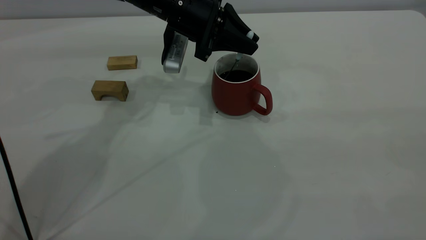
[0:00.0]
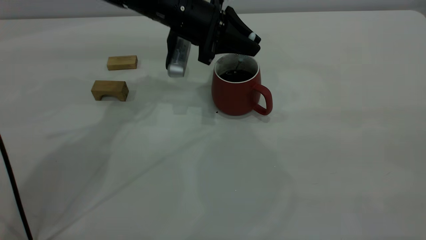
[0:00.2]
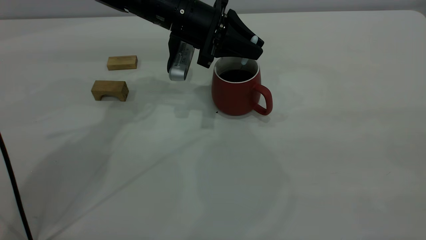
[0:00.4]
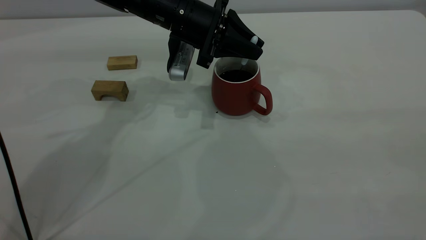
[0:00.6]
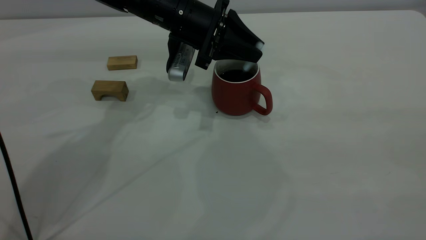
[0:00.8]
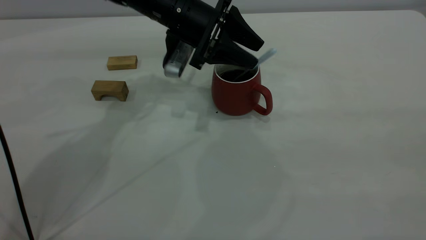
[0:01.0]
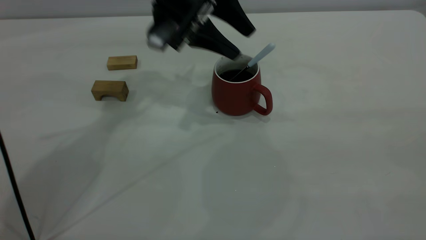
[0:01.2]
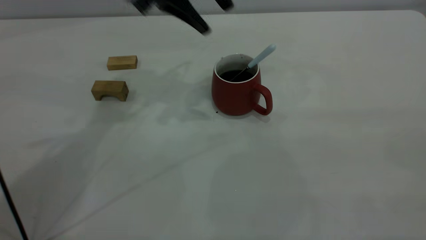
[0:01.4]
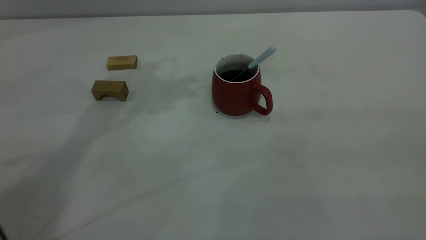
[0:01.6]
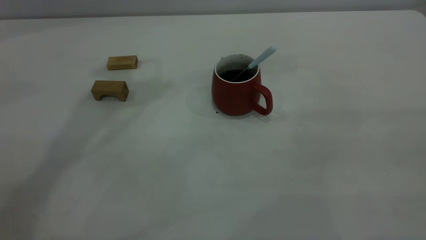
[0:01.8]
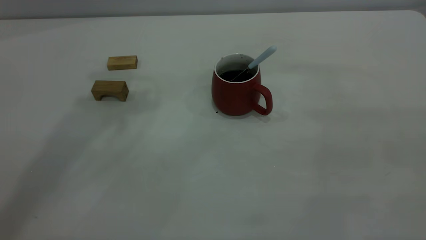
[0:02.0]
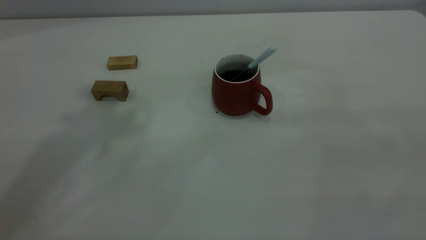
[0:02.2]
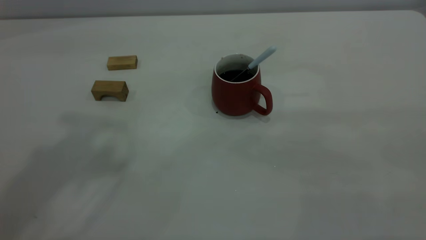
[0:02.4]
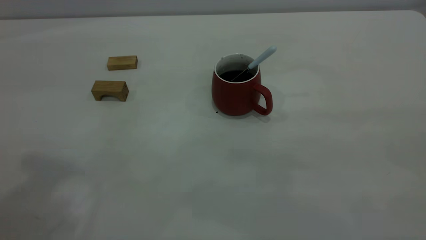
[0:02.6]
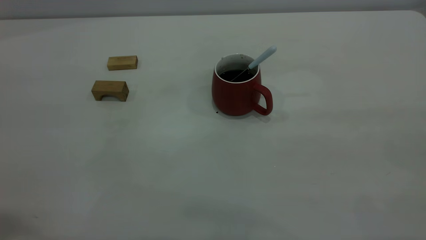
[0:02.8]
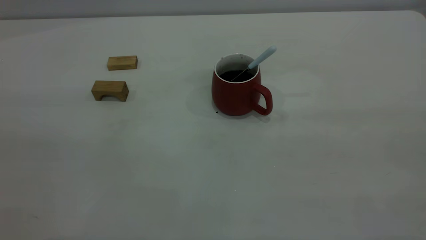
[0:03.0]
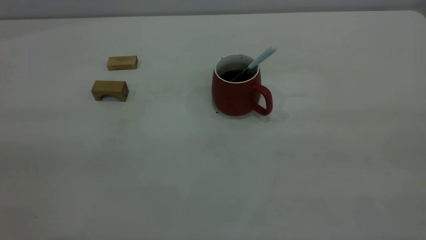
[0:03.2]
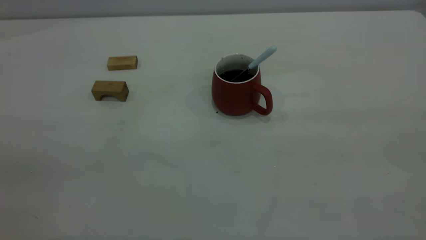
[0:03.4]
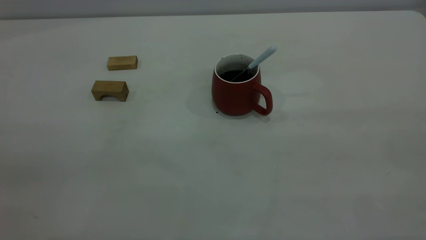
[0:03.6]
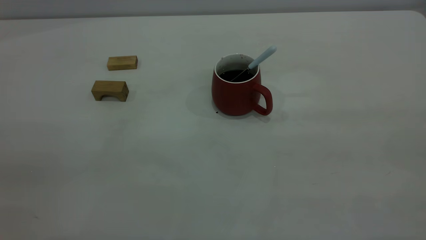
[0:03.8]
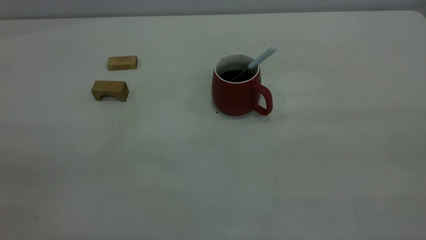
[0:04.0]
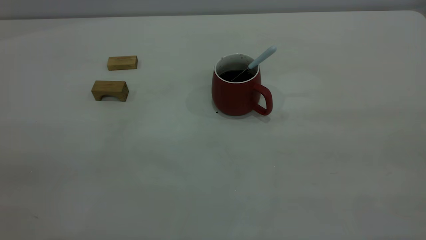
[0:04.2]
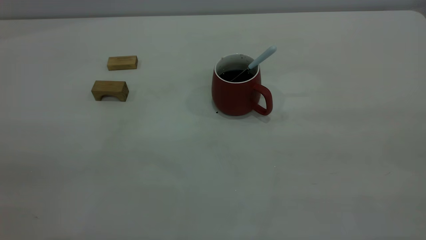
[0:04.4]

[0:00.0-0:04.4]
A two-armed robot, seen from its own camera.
0:00.0 to 0:01.4: The left gripper travels upward by roughly 10 cm, and opens up.
0:01.4 to 0:03.0: The left gripper goes about 40 cm backward and to the left.
